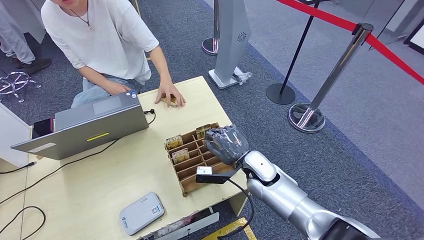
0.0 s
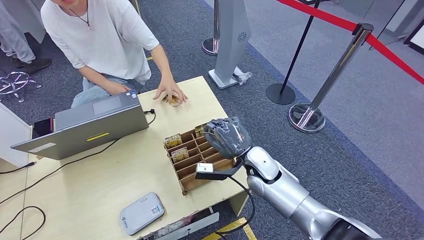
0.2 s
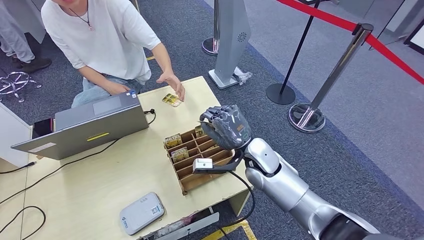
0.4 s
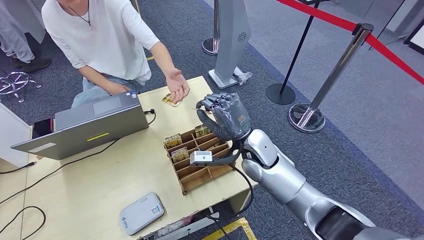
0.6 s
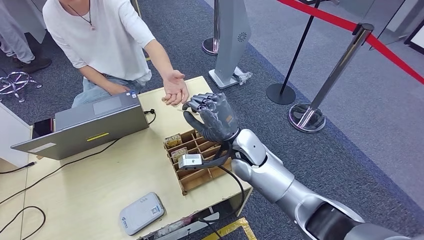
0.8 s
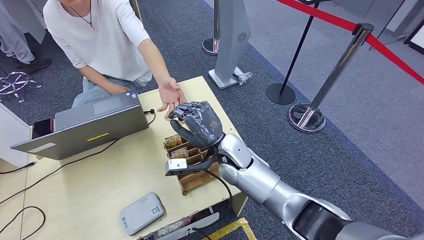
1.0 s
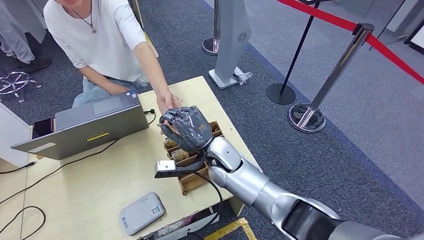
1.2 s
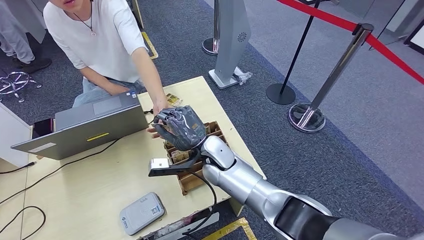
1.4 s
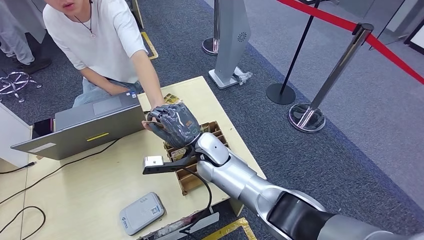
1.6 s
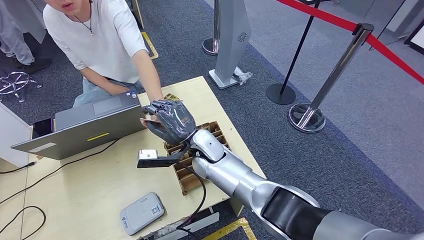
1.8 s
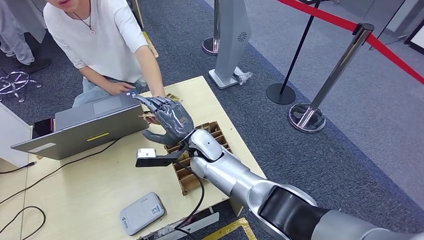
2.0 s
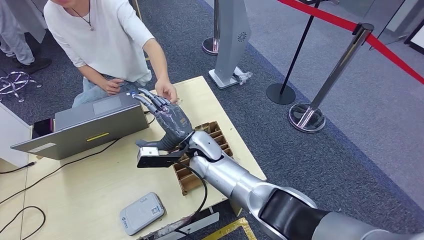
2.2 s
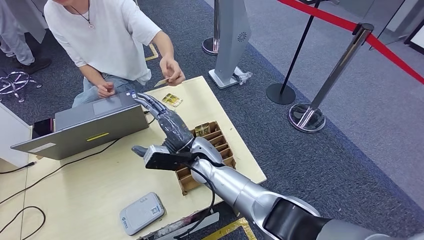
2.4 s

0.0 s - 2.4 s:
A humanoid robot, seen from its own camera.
Step, 0.0 s - 2.4 s: Hand the room key to the person.
0.0 s - 1.2 s: The right hand heads to the left, forward and upward, covering approximately 15 cm.
1.2 s - 2.4 s: The right hand changes place by approximately 5 cm.

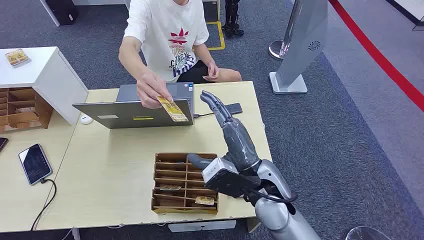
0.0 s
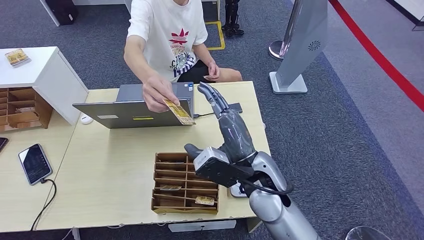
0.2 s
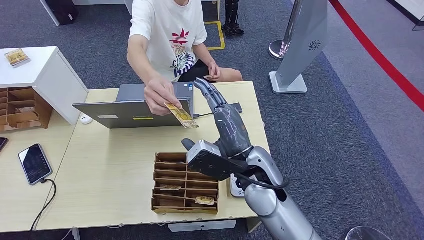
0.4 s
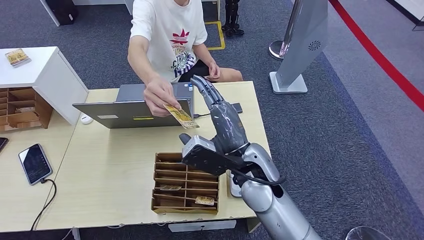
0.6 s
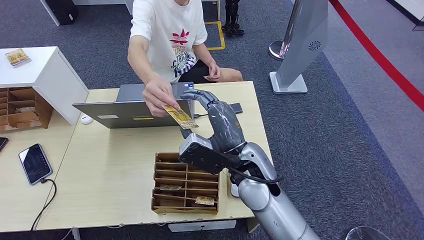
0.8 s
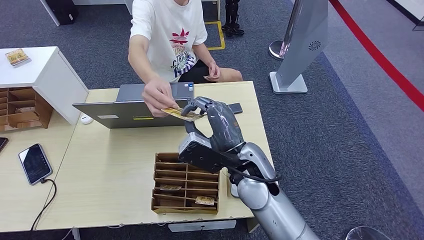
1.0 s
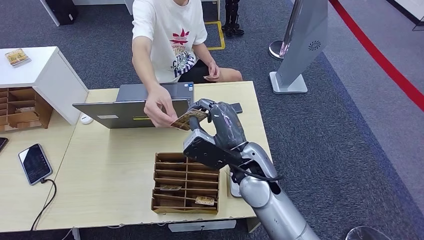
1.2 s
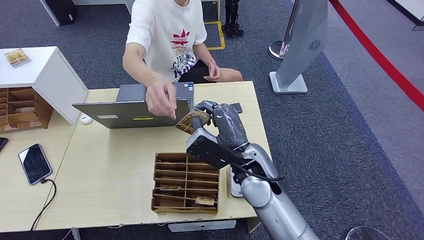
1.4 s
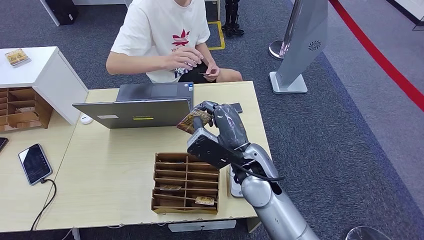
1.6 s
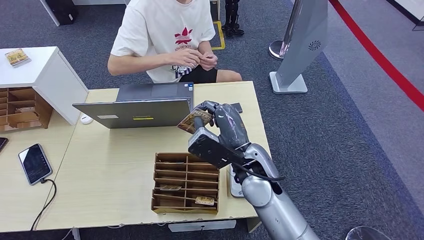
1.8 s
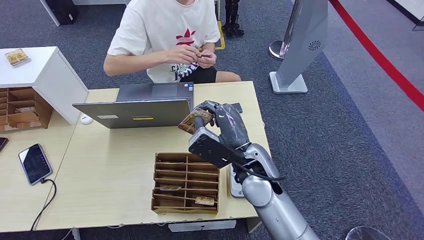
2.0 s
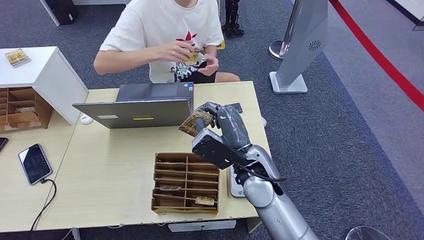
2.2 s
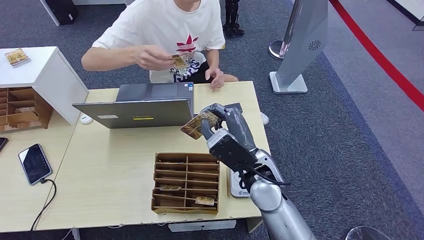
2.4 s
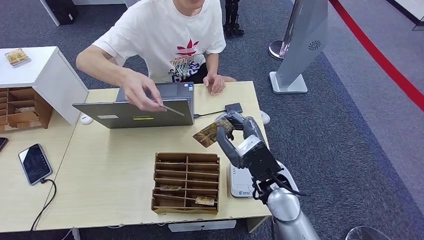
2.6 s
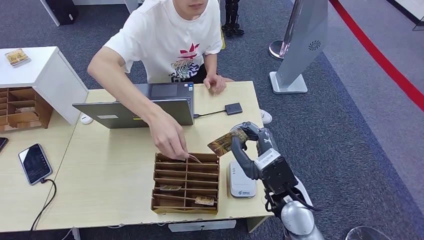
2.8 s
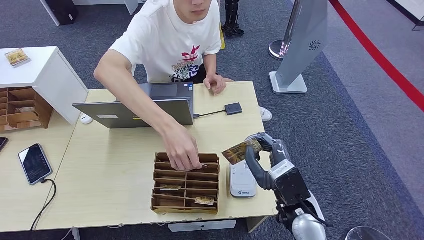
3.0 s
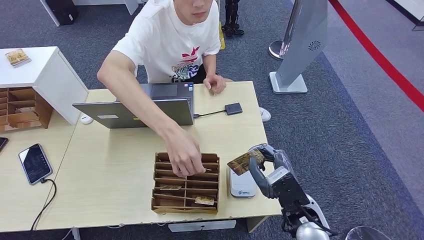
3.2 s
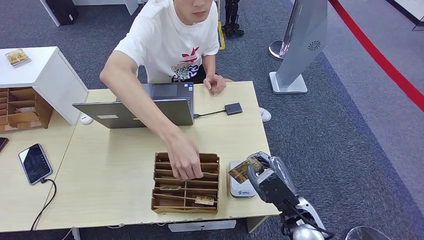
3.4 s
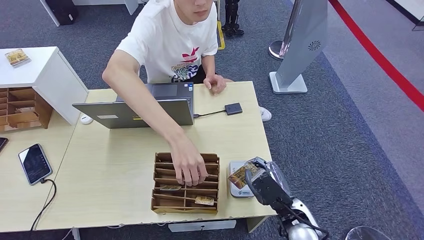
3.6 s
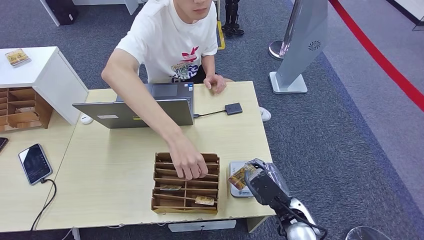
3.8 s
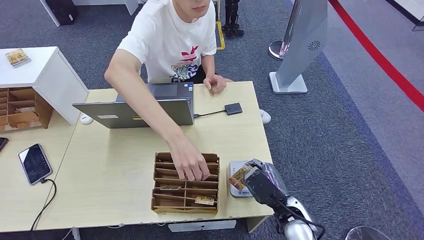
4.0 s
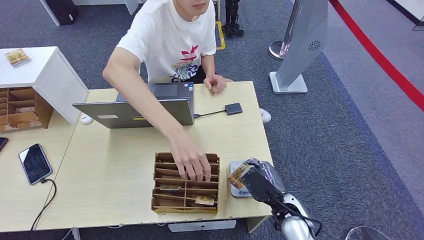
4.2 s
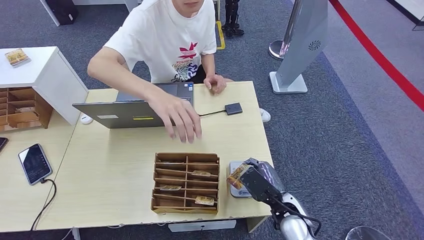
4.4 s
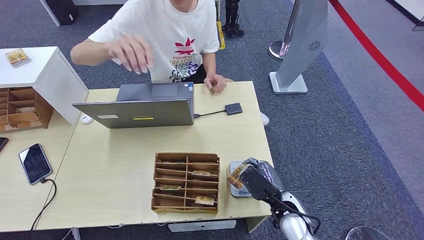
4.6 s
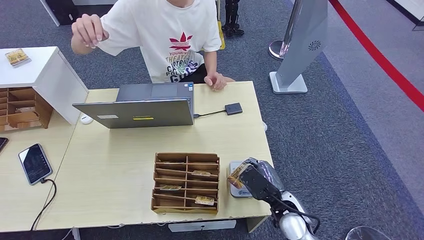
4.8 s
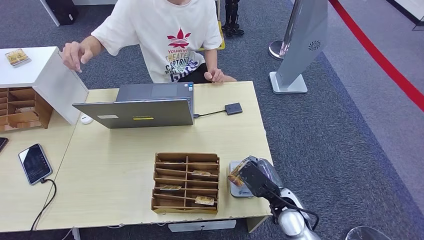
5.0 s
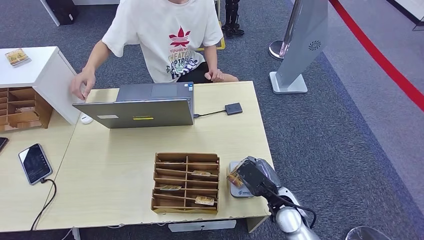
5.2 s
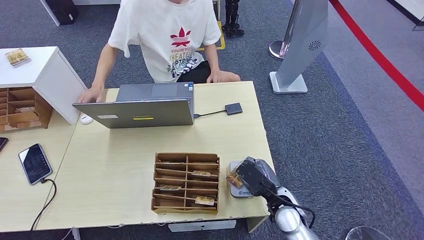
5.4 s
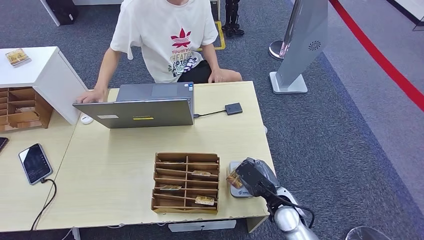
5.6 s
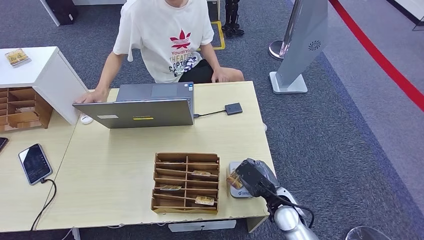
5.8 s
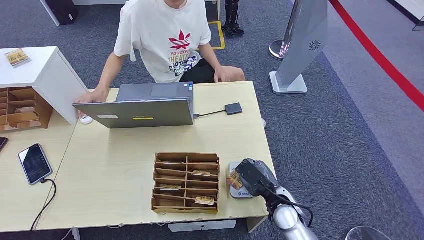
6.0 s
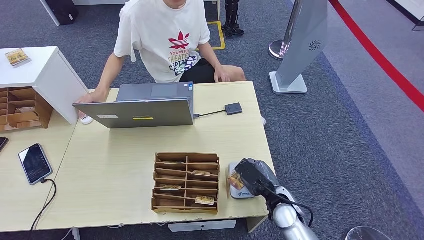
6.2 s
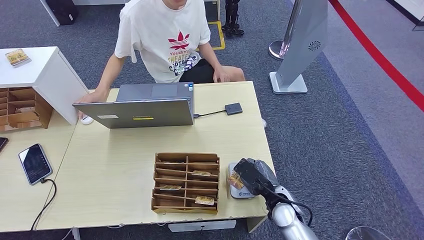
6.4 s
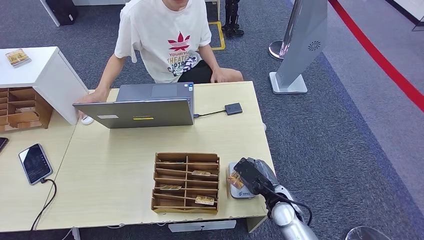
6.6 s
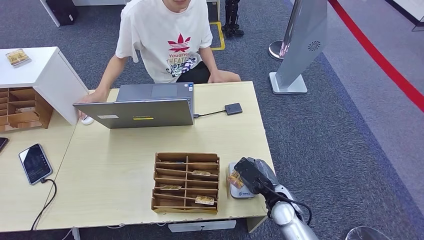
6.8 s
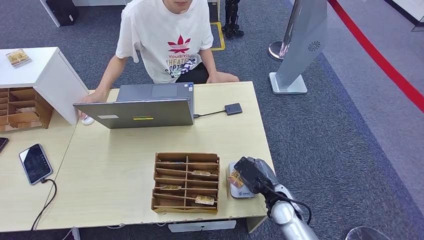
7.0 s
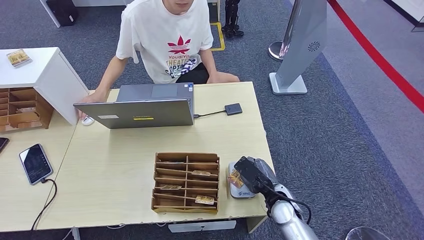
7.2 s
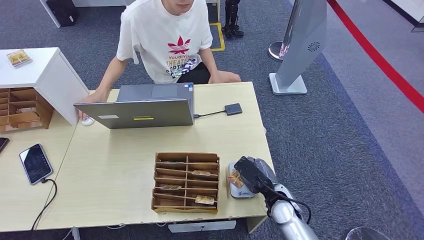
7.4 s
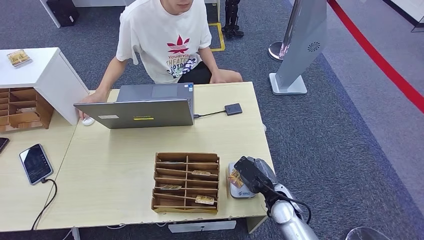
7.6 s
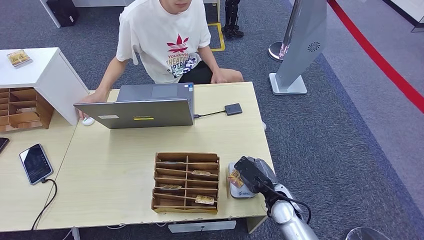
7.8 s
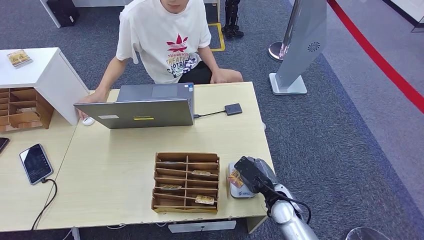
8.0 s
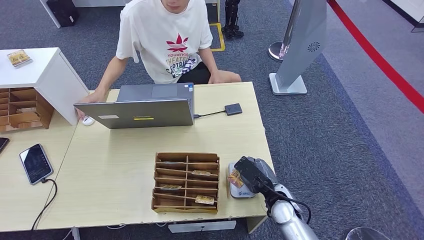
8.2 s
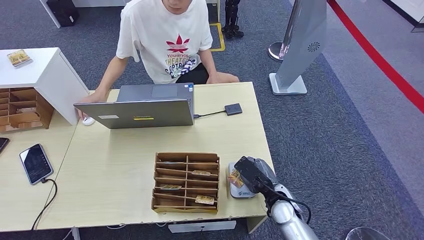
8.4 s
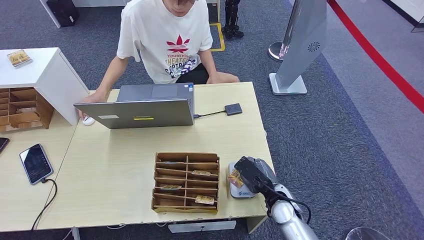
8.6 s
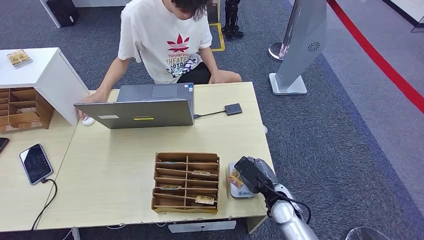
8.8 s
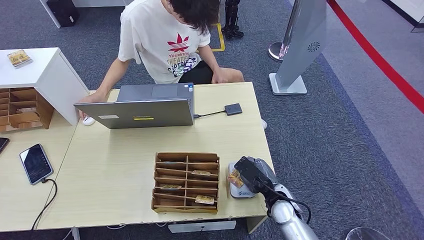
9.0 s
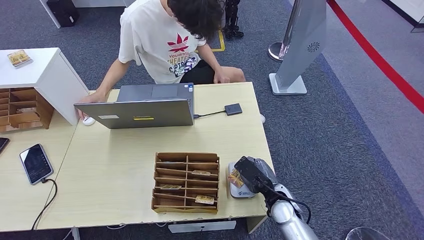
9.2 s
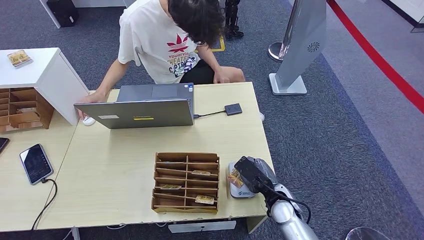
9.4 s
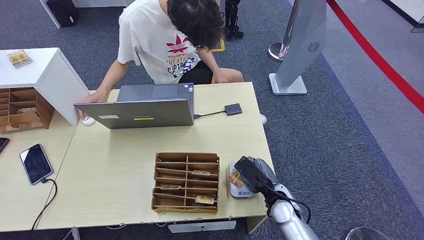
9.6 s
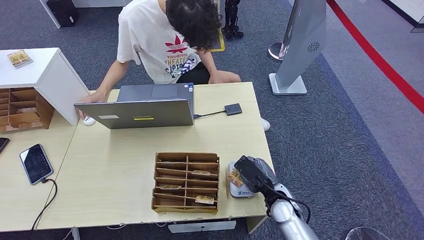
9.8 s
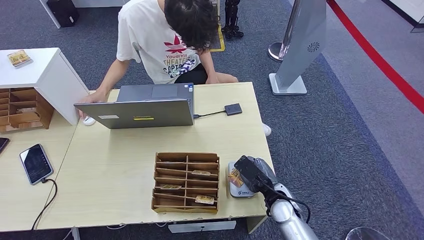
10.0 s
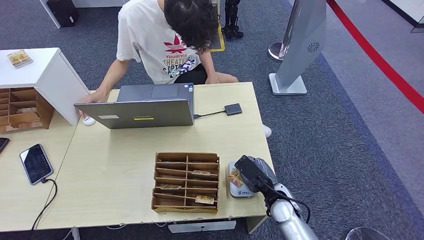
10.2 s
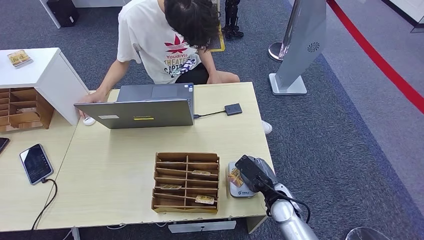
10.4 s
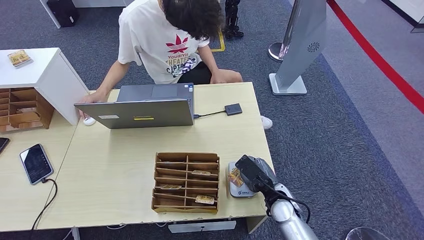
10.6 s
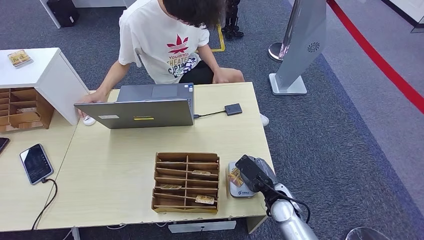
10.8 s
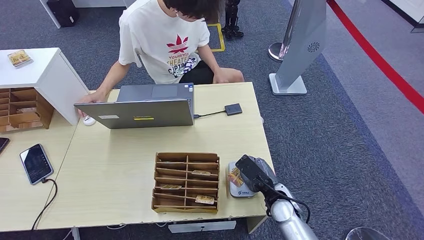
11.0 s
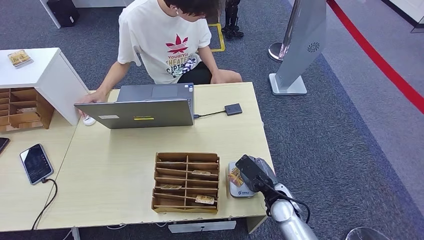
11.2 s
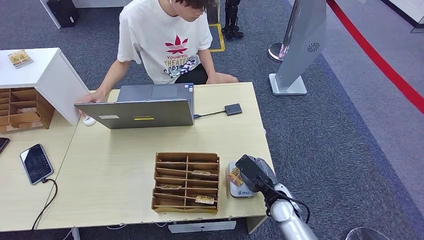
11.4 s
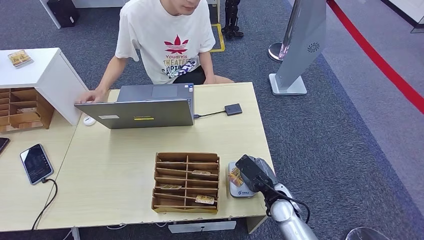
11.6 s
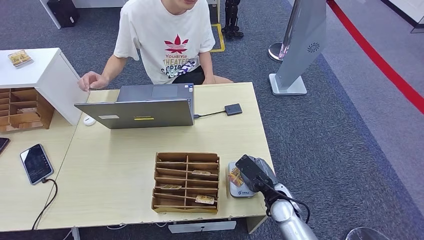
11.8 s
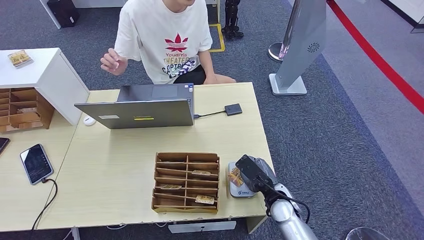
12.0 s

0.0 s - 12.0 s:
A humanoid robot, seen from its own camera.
Step, 0.0 s - 2.8 s: Take the ID card from the person's hand.
Step, 3.0 s - 5.2 s: Place the ID card on the card reader.
1.6 s - 3.0 s: The right hand travels to the right, backward and downward by approximately 15 cm.
3.0 s - 4.4 s: The right hand shifts approximately 10 cm downward.
4.4 s - 7.6 s: The hands make only small movements.
7.6 s - 12.0 s: Both hands stay about where they are.

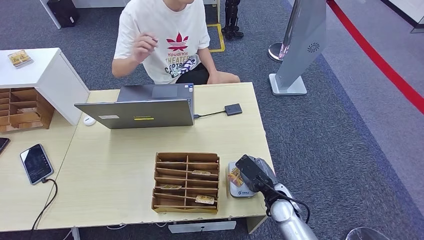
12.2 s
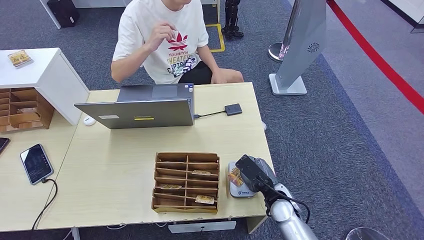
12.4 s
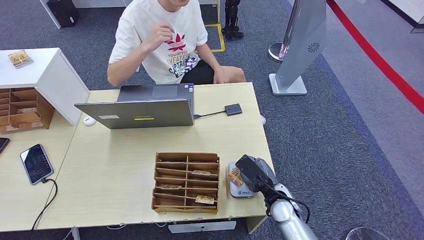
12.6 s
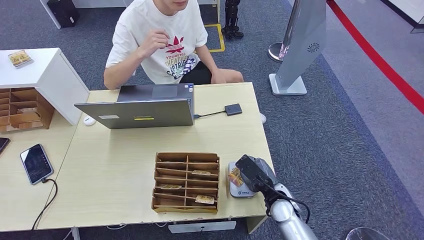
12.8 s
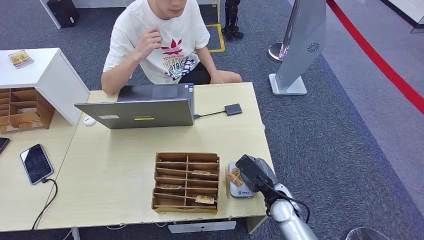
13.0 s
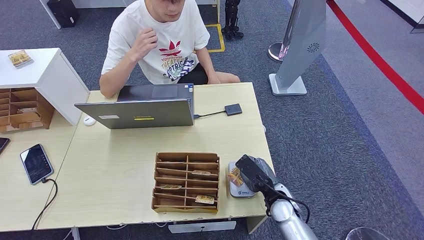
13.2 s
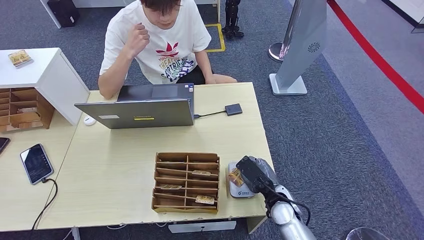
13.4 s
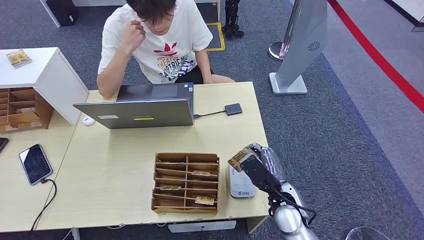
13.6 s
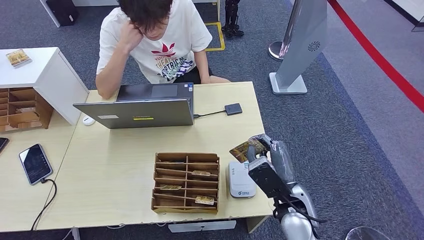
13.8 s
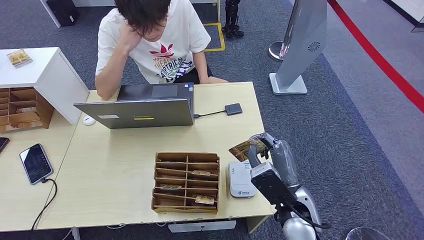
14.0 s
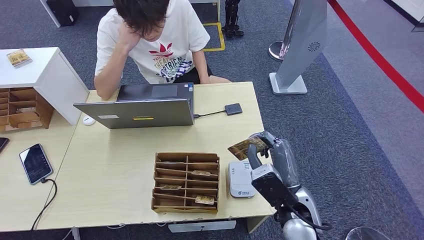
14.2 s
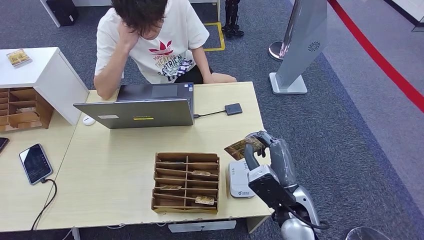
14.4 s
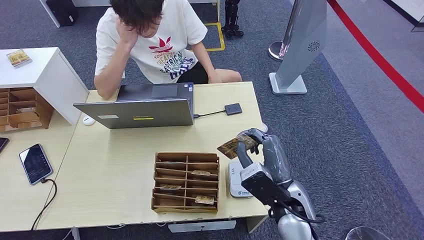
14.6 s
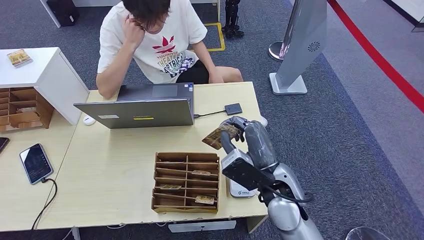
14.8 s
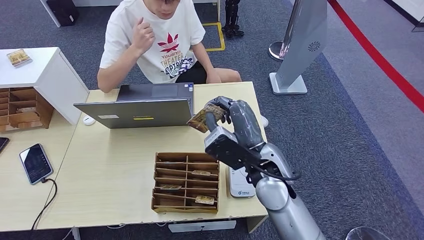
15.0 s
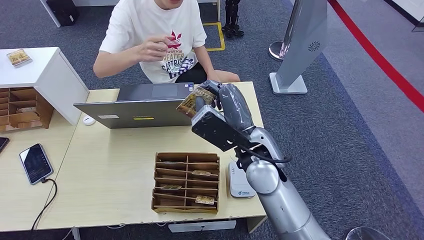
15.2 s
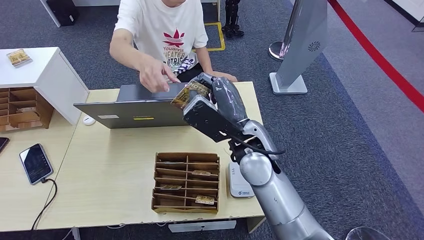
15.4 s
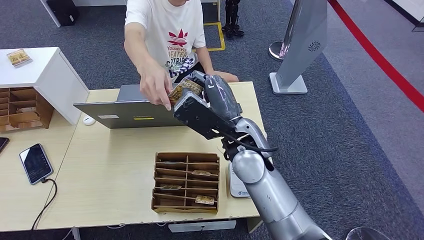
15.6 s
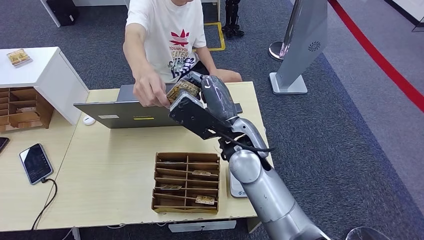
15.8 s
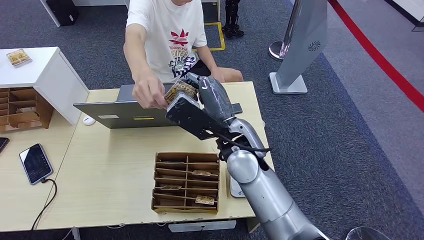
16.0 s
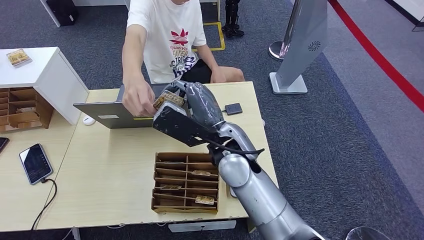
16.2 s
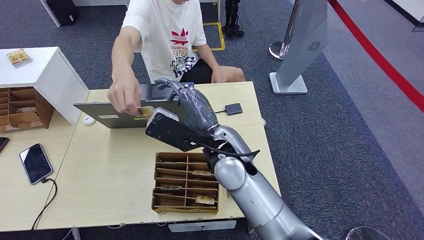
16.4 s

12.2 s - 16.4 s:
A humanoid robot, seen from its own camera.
12.2 s - 13.6 s: The hands move only a little.
13.6 s - 15.0 s: The right hand is displaced upward and to the left by some 15 cm.
15.0 s - 16.4 s: The right hand is displaced to the left by approximately 10 cm.
